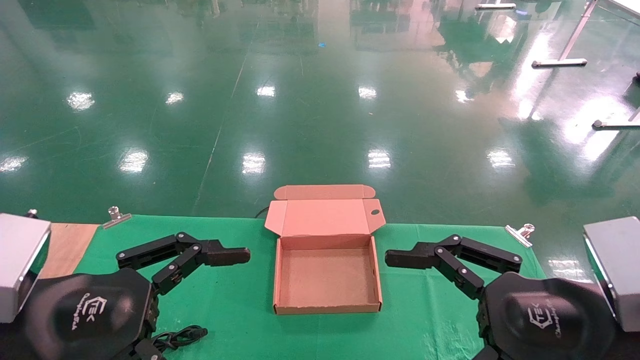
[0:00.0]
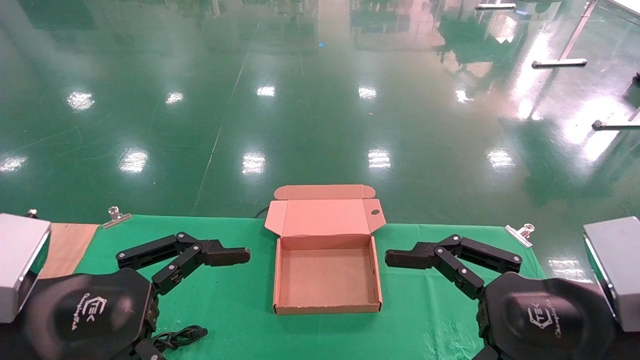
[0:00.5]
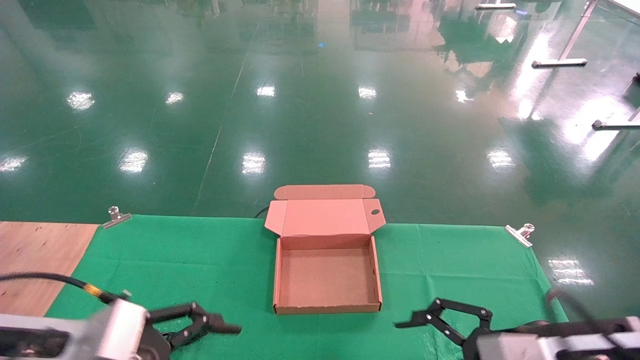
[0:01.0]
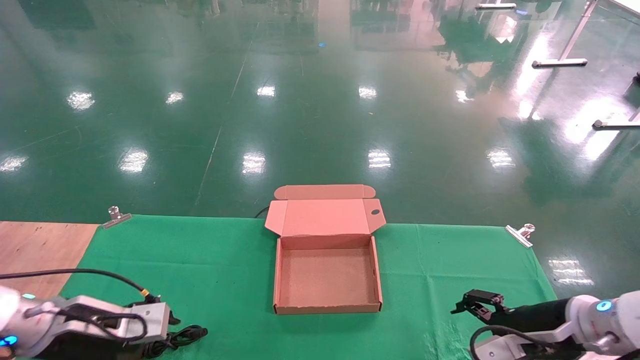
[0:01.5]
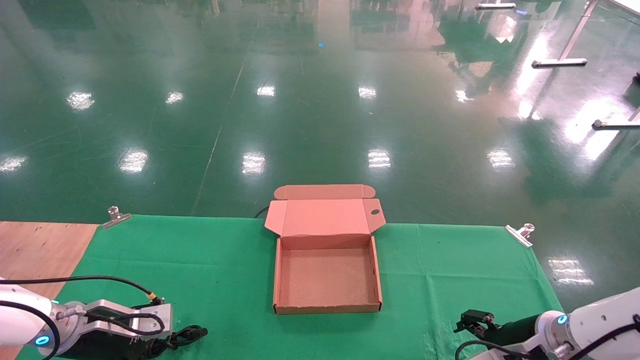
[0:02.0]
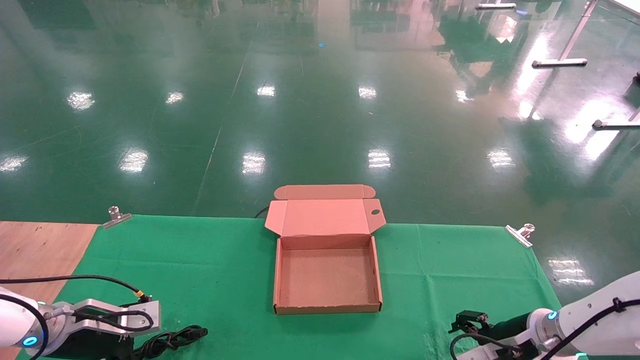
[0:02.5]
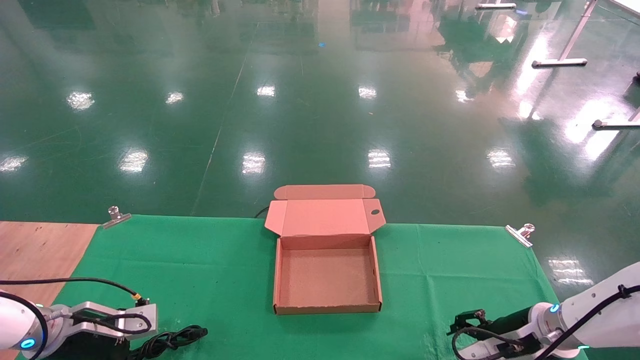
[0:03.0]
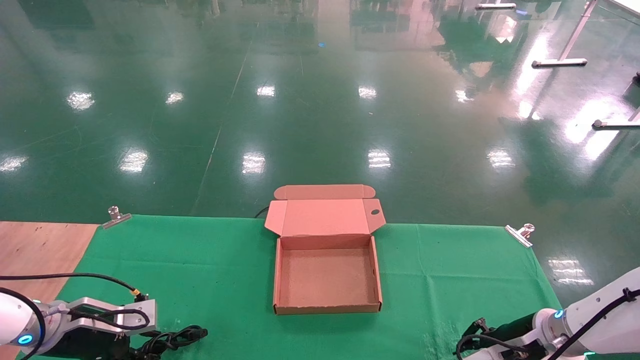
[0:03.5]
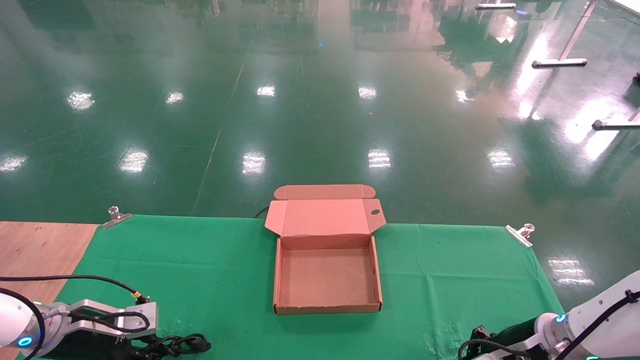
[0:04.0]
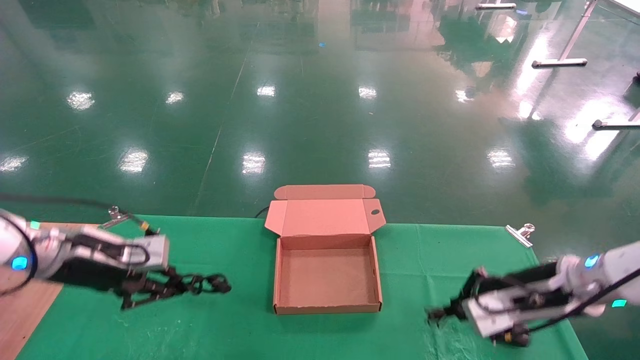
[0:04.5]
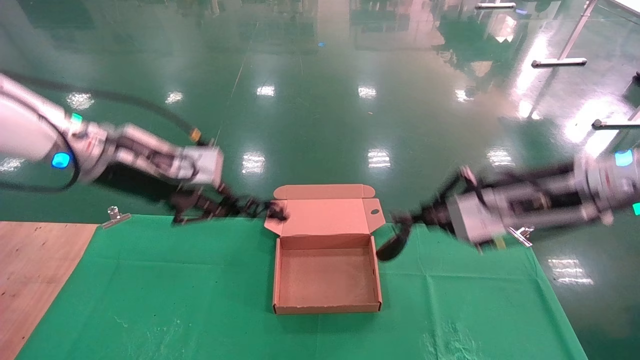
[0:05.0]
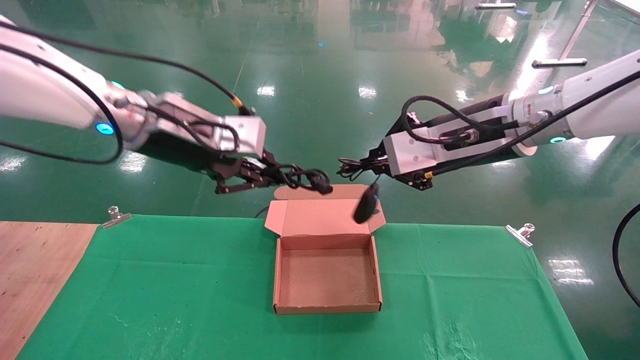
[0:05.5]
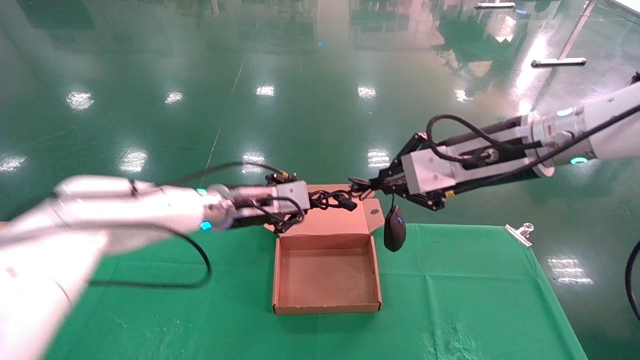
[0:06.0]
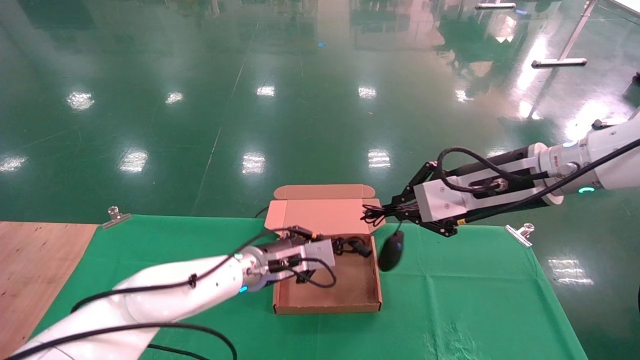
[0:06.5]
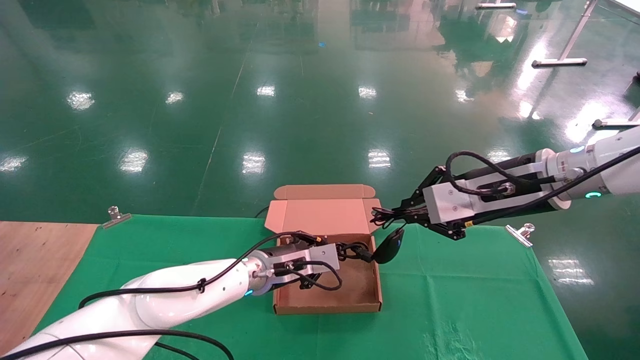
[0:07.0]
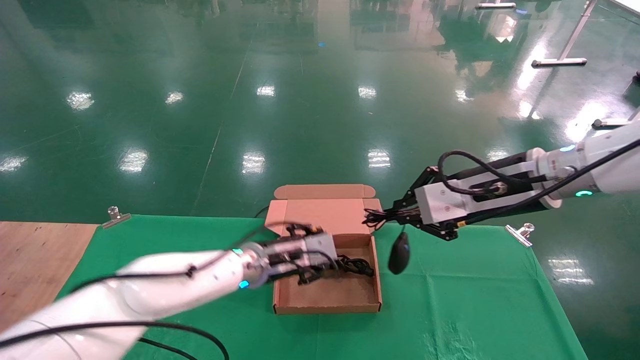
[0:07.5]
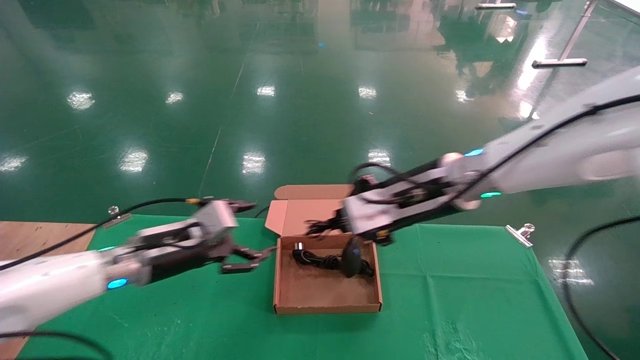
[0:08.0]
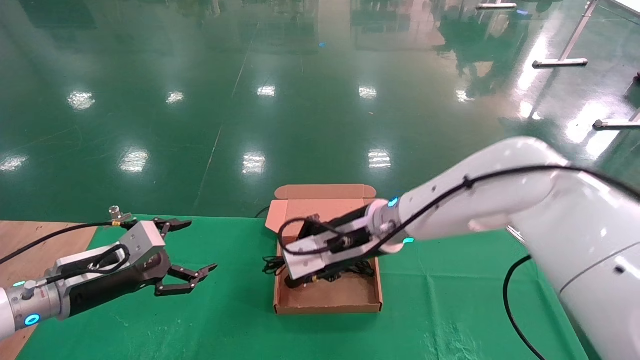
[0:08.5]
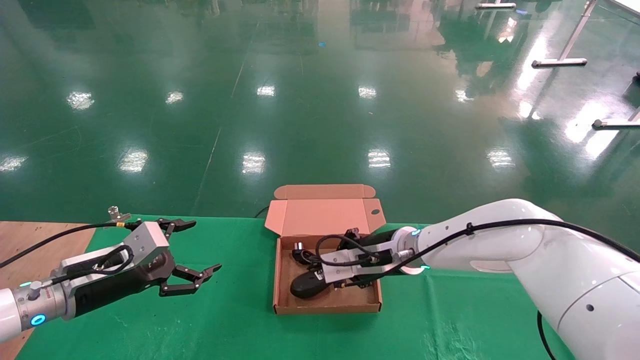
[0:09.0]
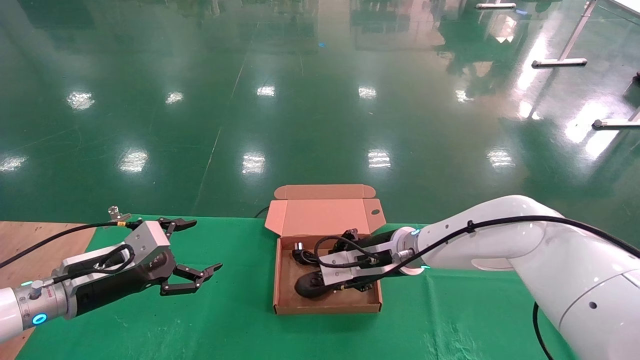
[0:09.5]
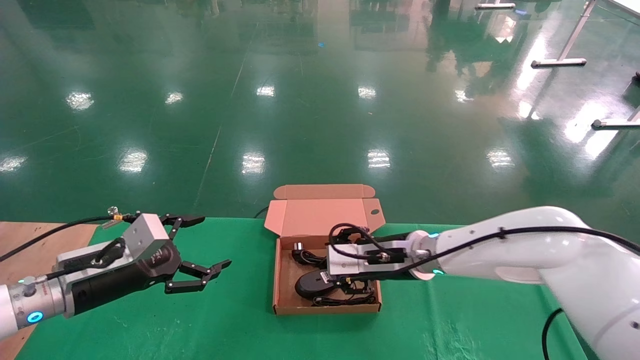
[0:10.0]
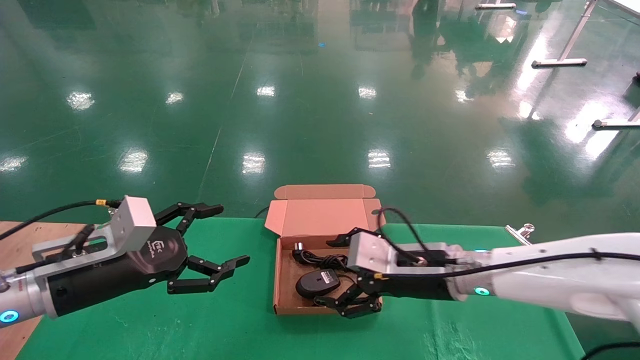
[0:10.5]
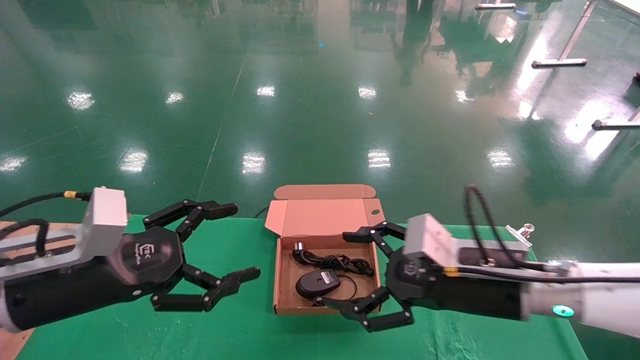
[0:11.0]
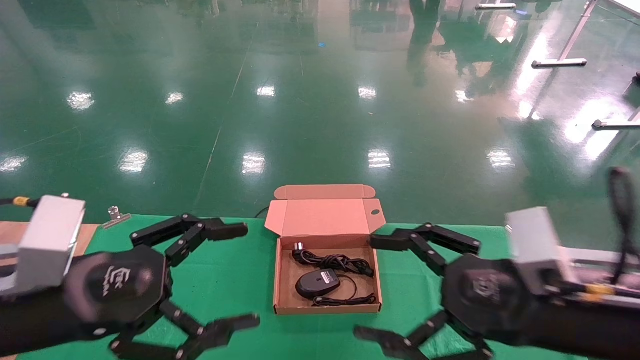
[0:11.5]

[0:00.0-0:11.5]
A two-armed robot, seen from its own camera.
Step, 0:01.0 to 0:04.5: Grab and lift both the mouse and power cord from the accessory packaging area at the same time.
Step, 0:05.0 to 0:09.5: Place the mouse and power cord into the box.
0:00.0 to 0:02.0: The left gripper moves forward, downward and to the left, about 25 cm, while the right gripper shifts about 25 cm forward and downward.
0:02.0 to 0:04.0: The left gripper closes its fingers. Meanwhile the right gripper closes up.
0:04.0 to 0:06.0: The right gripper shifts about 25 cm upward. The left gripper moves to the right and upward, approximately 30 cm.
0:06.0 to 0:07.5: The left gripper goes some 10 cm downward.
0:07.5 to 0:09.5: The right gripper is displaced downward, to the left and forward by about 20 cm, while the left gripper shifts about 25 cm to the left, and opens.
0:09.5 to 0:11.5: The left gripper shifts approximately 20 cm backward, upward and to the right, while the right gripper moves backward and to the right, approximately 25 cm, and opens up.
